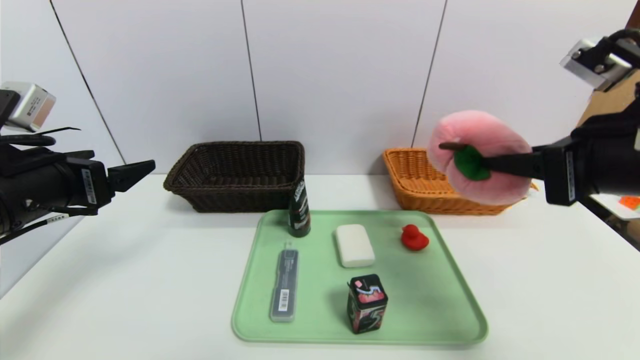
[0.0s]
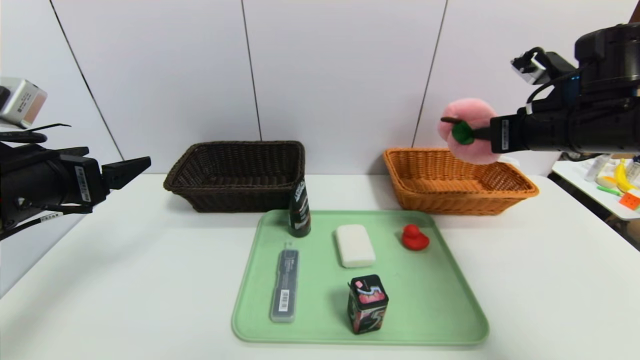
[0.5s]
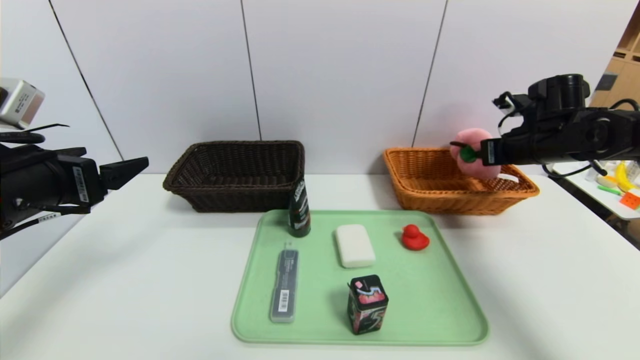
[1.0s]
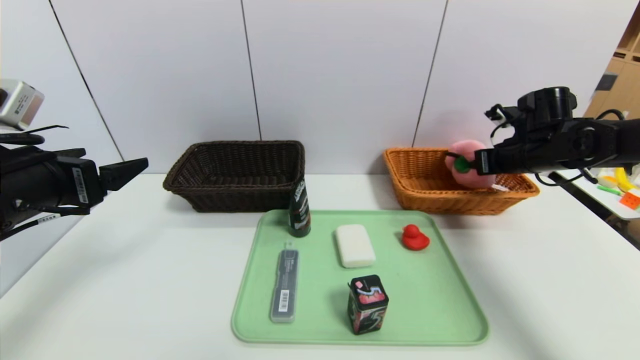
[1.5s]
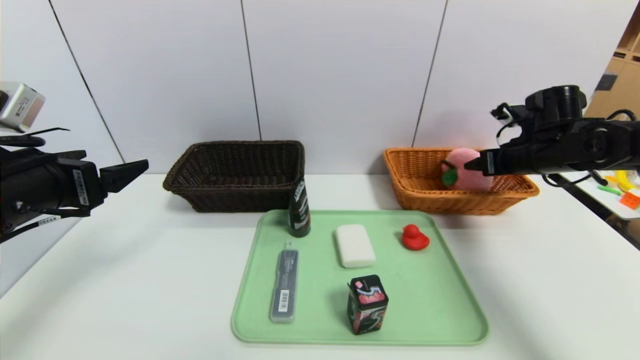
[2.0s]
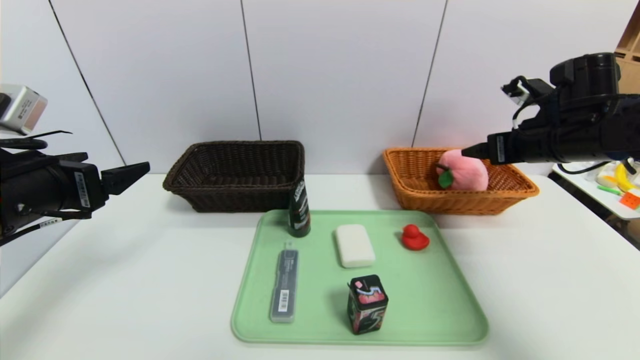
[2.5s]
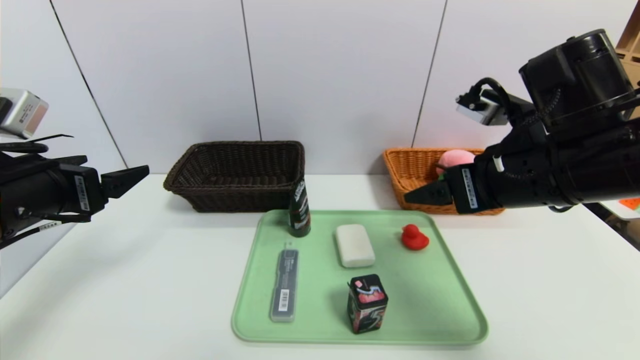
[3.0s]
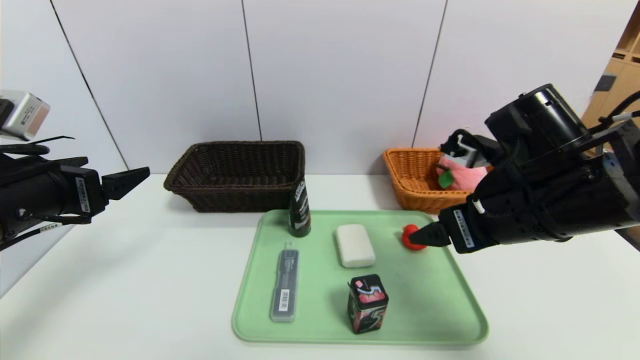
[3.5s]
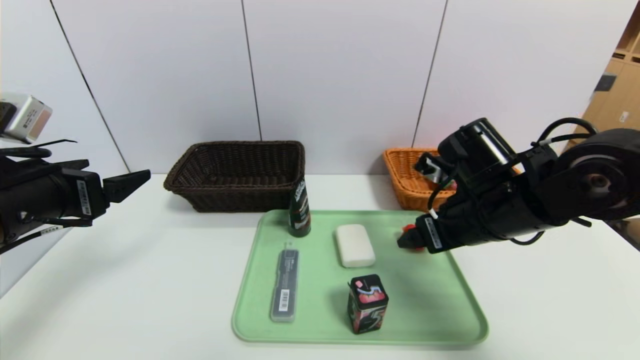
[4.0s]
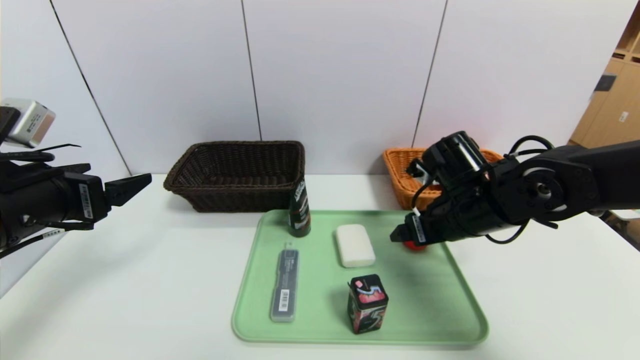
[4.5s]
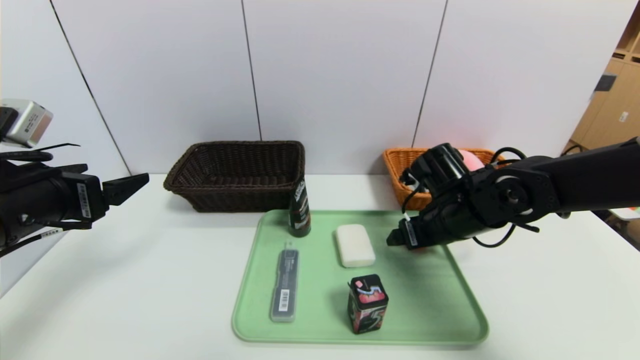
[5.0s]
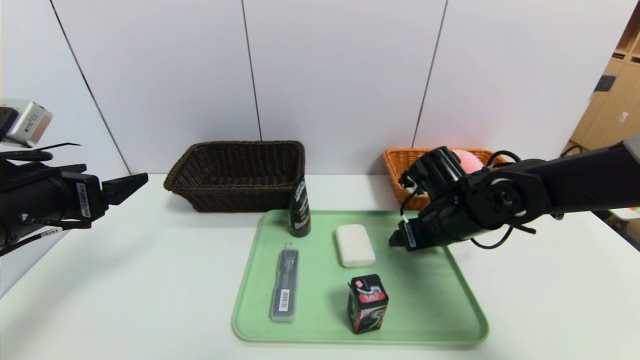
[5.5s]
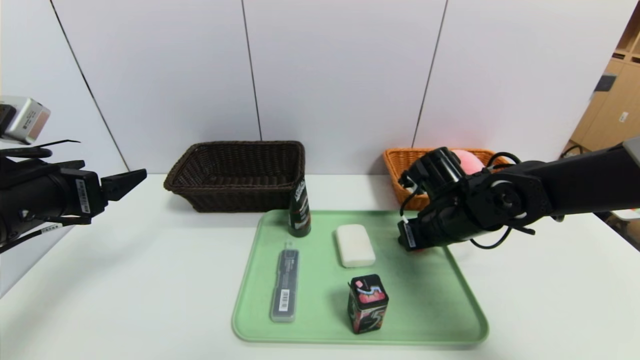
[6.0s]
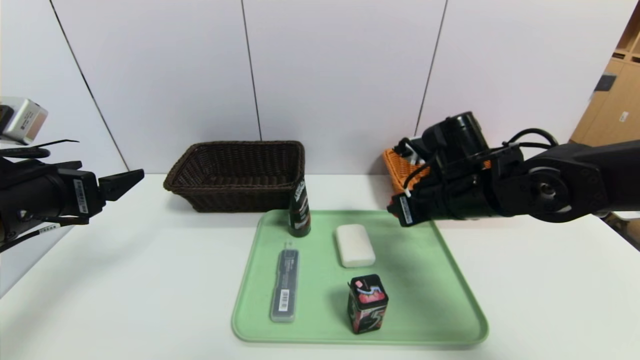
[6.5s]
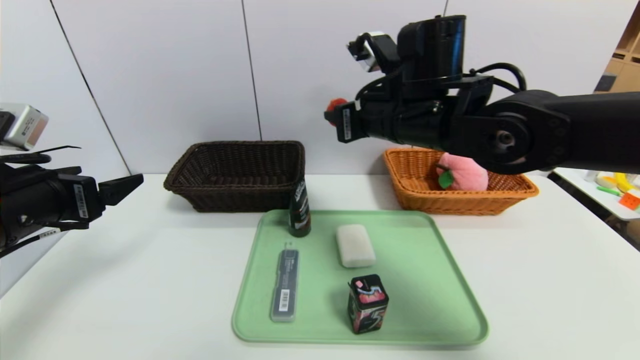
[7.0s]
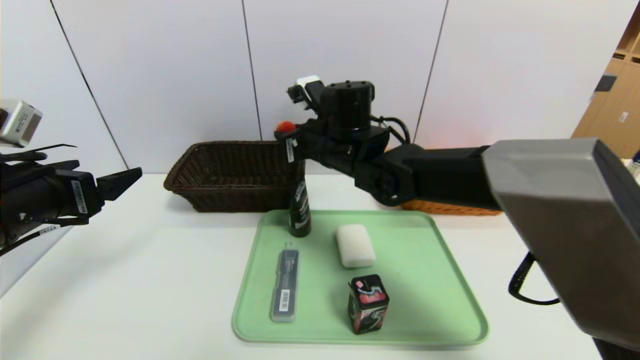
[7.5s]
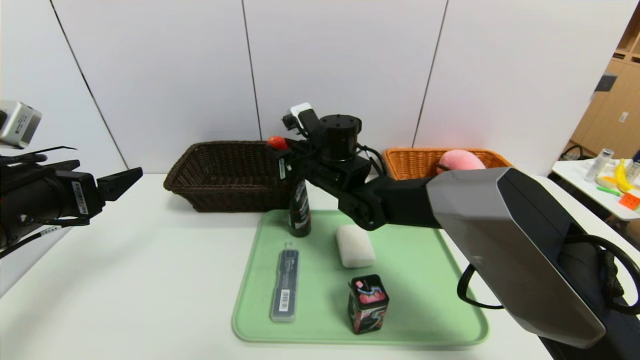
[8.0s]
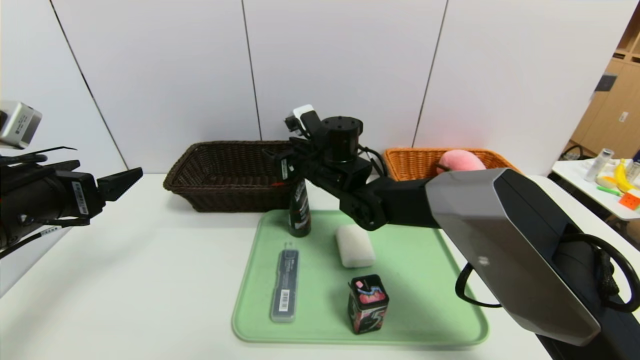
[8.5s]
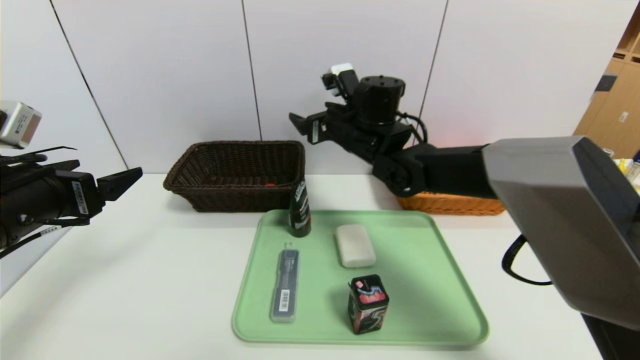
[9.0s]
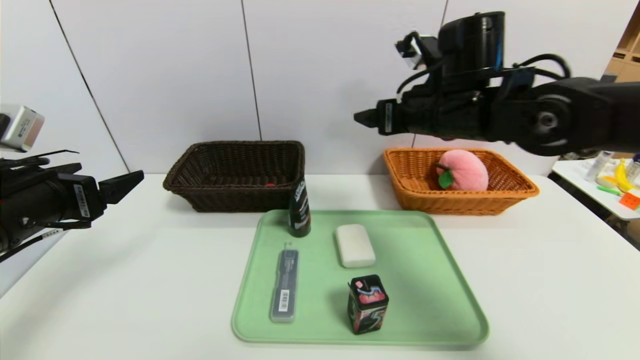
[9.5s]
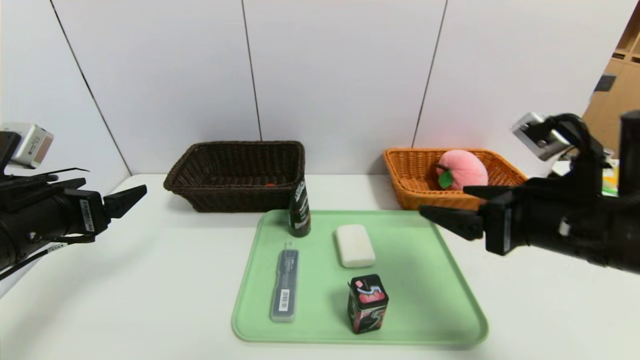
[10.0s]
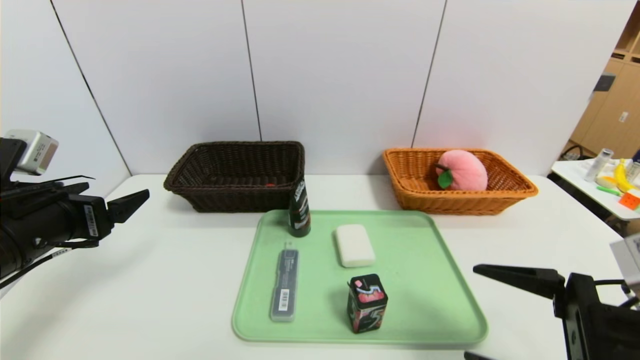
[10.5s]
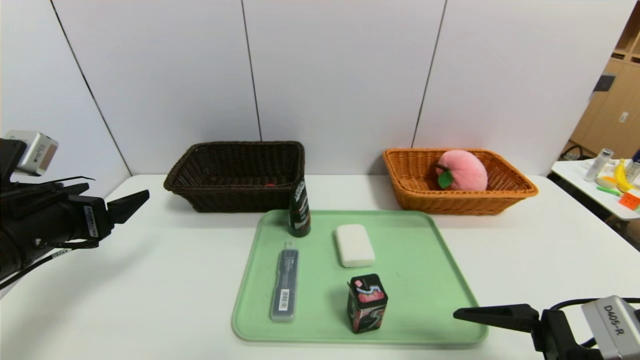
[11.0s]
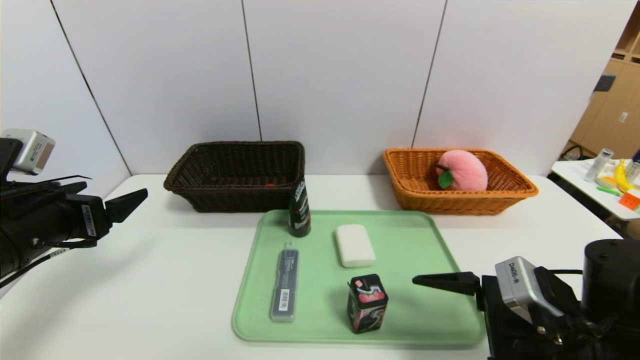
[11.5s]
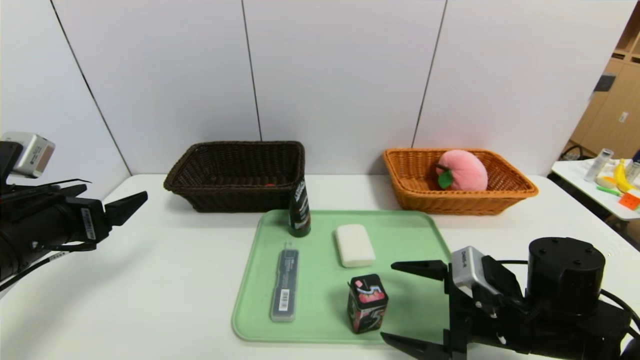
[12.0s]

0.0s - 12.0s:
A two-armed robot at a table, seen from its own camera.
Task of the whole recording: place the food in the right basket with the right gripper, and place the non food items in the left basket with the left gripper.
Step, 0.0s - 2.0s: Grasp the peach doll and put it in the right basket.
0.0s - 2.0s: The right gripper travels forward, downward and to the right by roughly 25 cm, and opens up.
2.0s - 4.0s: The right gripper moves to the left and backward, approximately 20 cm.
4.0s - 6.0s: The right gripper shifts roughly 10 cm downward and forward, and closes.
6.0s - 8.0s: The right gripper moves to the left and forward, about 20 cm.
8.0s - 10.0s: The right gripper heads to the right and backward, covering about 30 cm, and opens up.
10.0s - 12.0s: The right gripper goes approximately 15 cm downward.

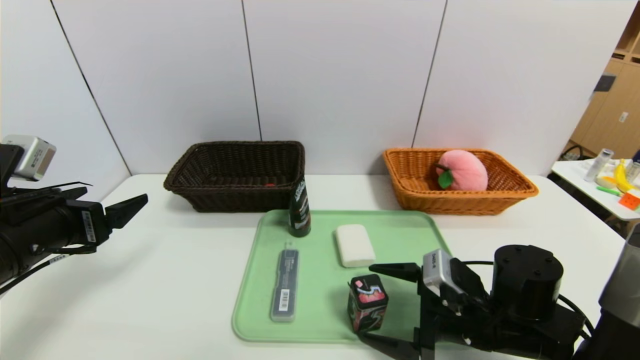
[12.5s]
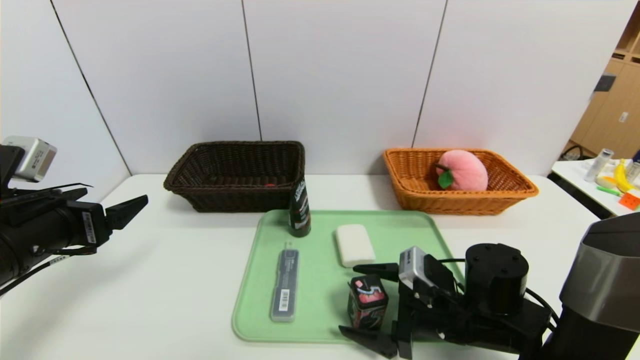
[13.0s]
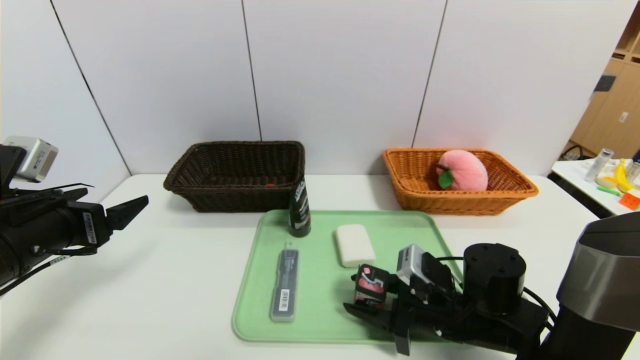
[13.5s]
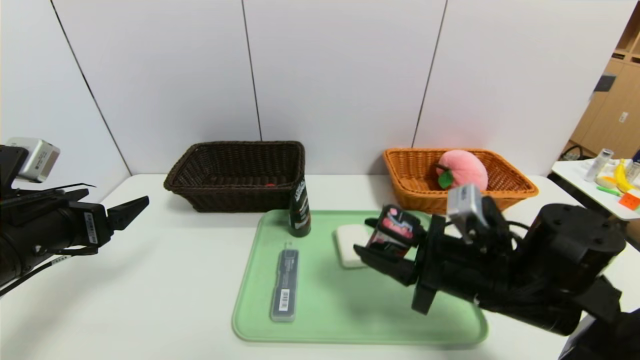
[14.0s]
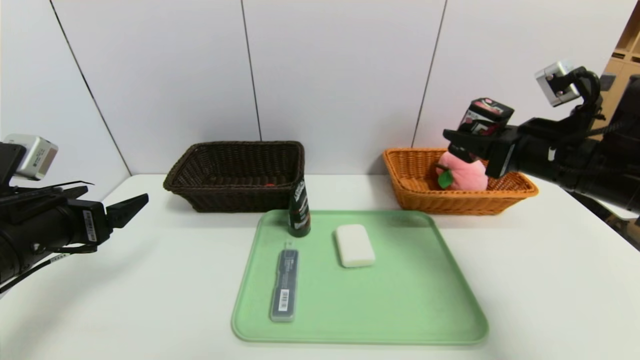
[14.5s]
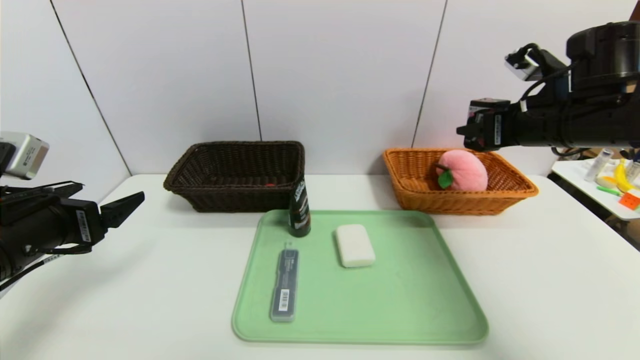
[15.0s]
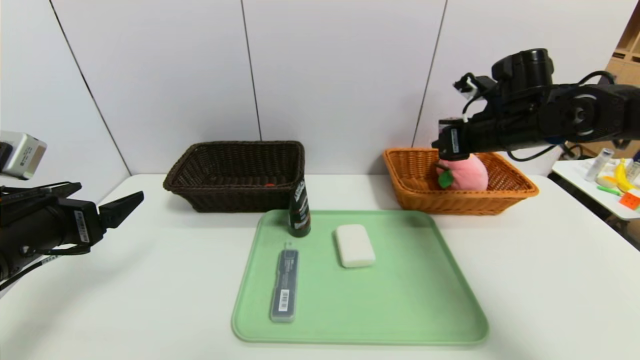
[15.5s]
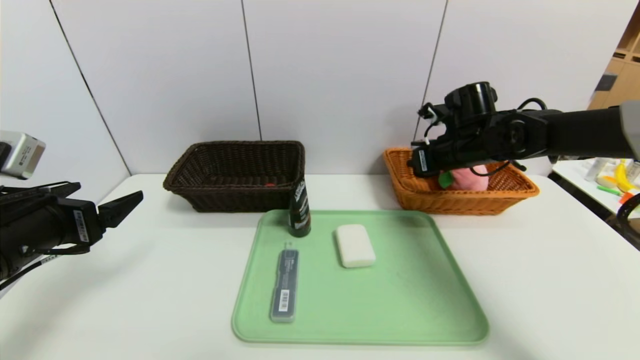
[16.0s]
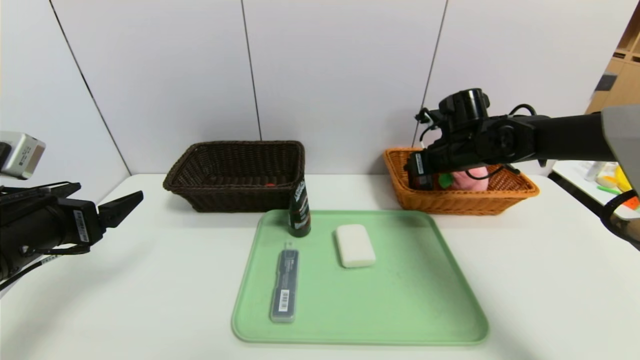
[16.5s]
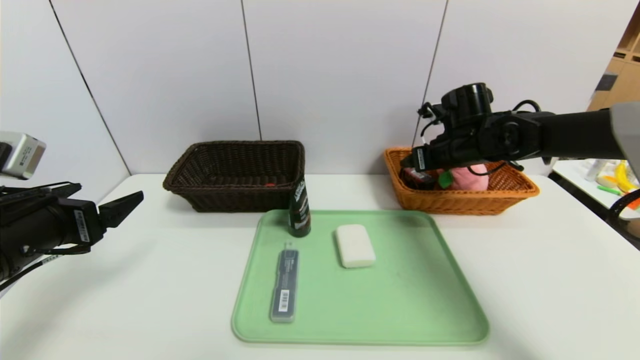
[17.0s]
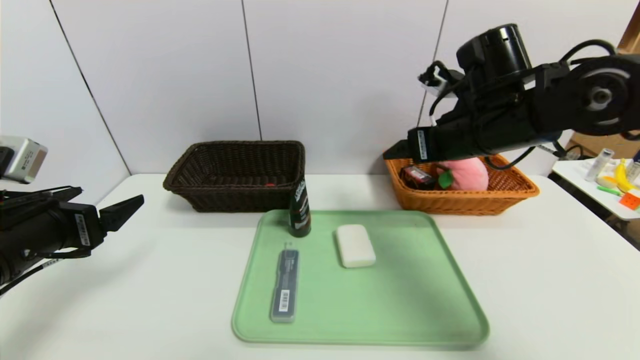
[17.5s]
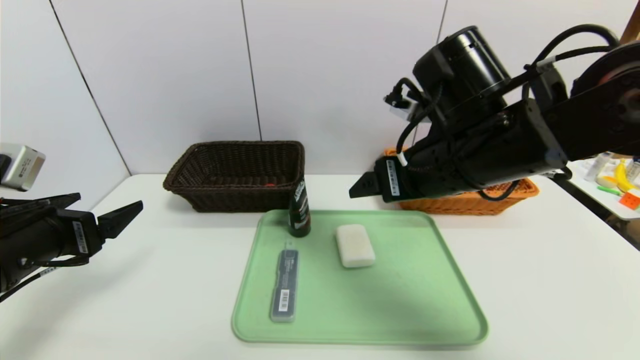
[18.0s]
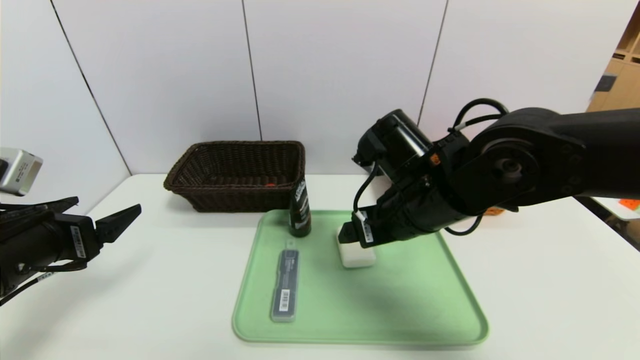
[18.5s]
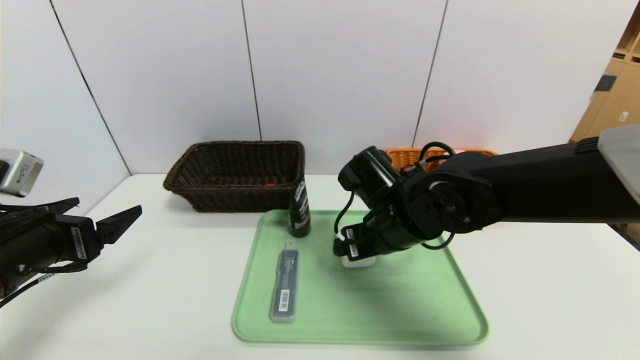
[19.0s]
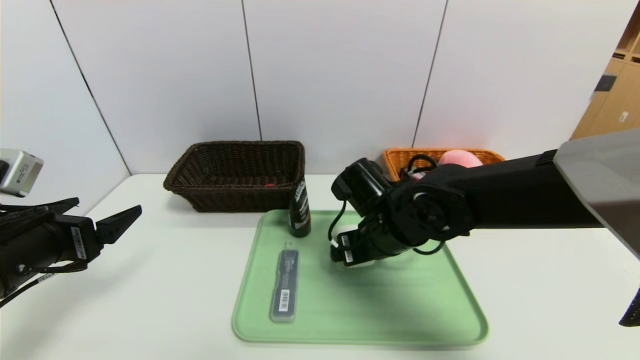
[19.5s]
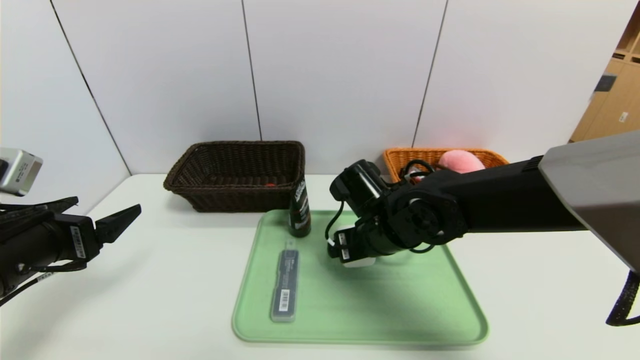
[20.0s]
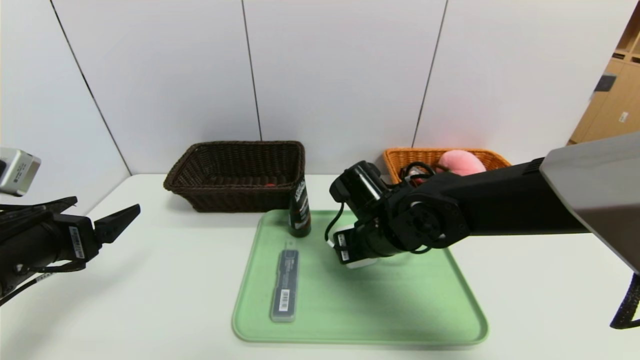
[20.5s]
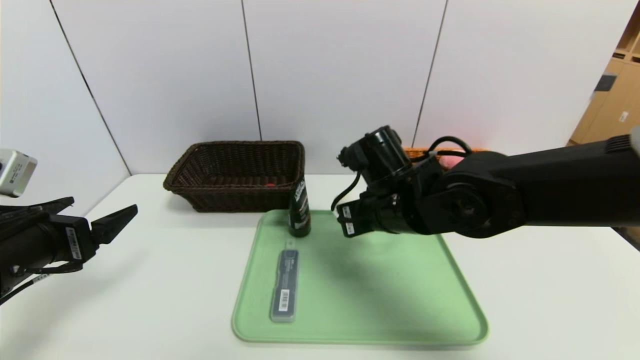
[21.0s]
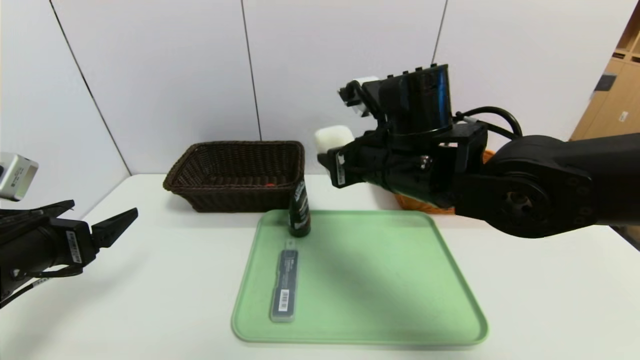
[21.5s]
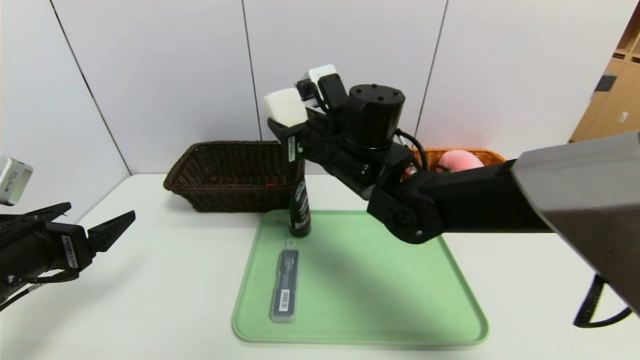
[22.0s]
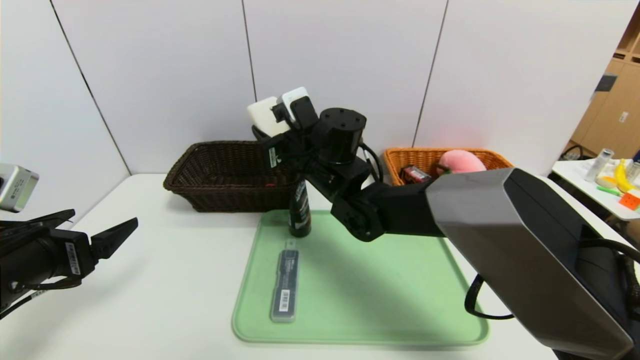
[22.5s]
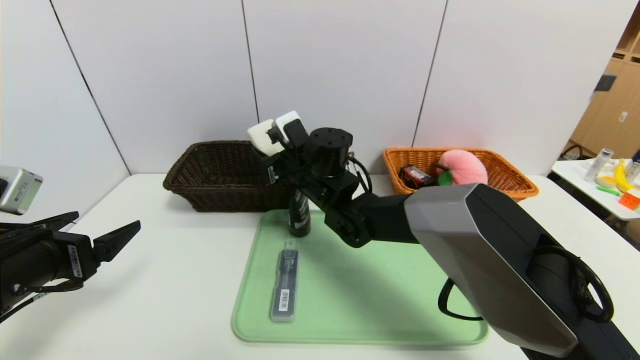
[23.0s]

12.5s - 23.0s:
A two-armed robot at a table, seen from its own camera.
Task of the whole recording: place the food in the right basket with the right gripper, and place the non food items in the left basket with the left gripper.
Step, 12.5s - 16.5s: Grasp the square chewing gum and put it in the right basket.
12.5s - 14.5s: The right gripper shifts roughly 20 cm upward and to the right, and closes.
14.5s - 16.5s: The right gripper goes some 15 cm forward.
16.5s - 19.0s: The right gripper is displaced to the left and backward by some 20 cm, and opens up.
19.0s - 21.0s: The right gripper closes its fingers.
21.0s - 23.0s: The right gripper heads to the left and forward, covering about 15 cm.
